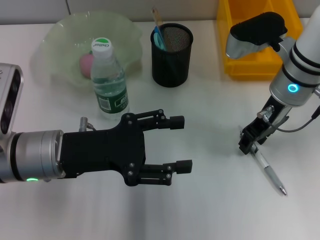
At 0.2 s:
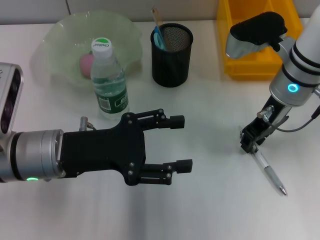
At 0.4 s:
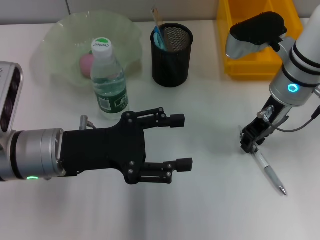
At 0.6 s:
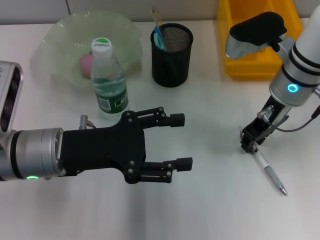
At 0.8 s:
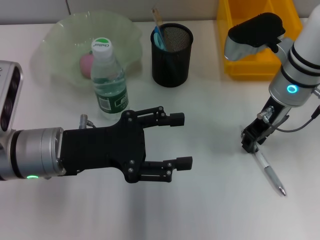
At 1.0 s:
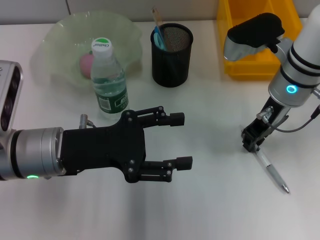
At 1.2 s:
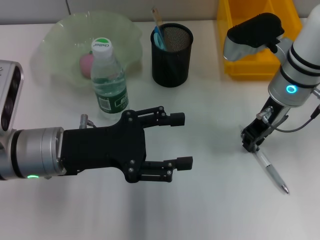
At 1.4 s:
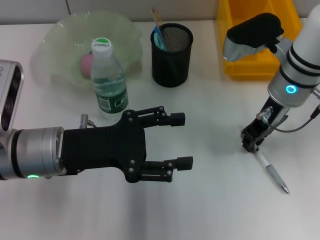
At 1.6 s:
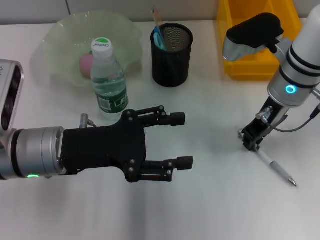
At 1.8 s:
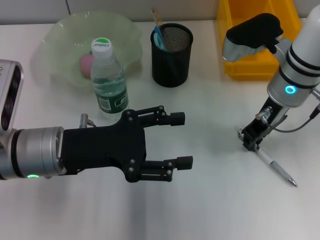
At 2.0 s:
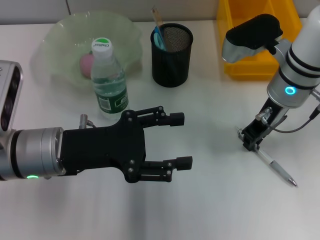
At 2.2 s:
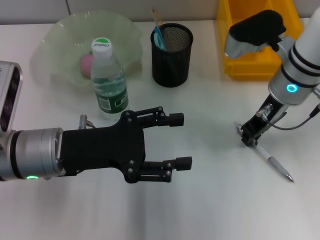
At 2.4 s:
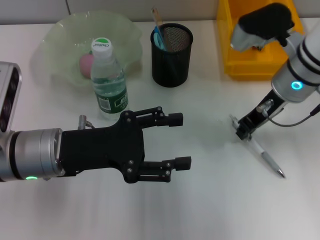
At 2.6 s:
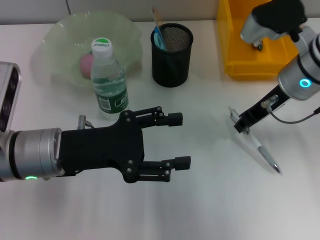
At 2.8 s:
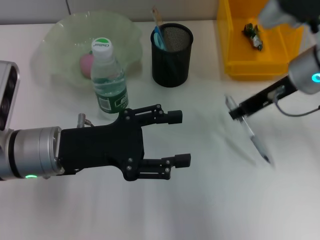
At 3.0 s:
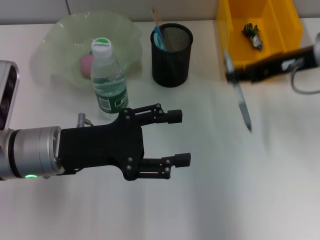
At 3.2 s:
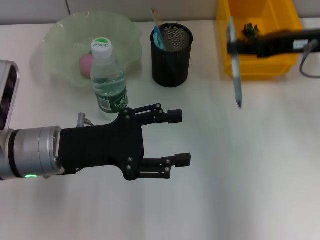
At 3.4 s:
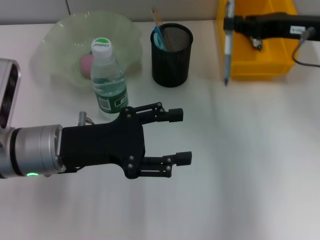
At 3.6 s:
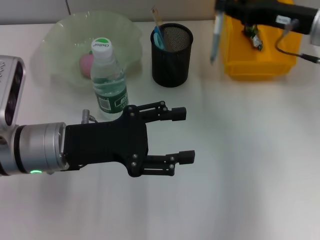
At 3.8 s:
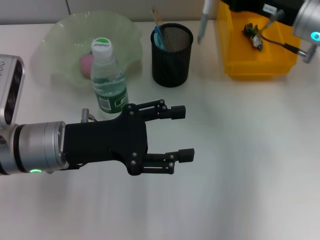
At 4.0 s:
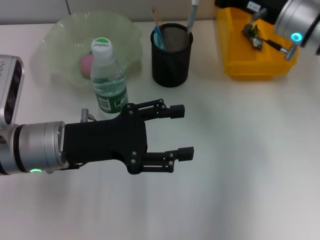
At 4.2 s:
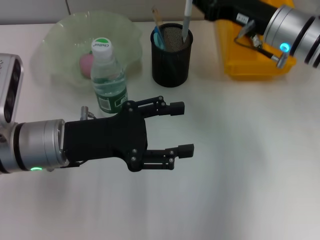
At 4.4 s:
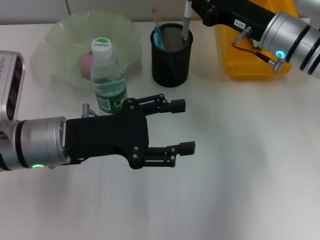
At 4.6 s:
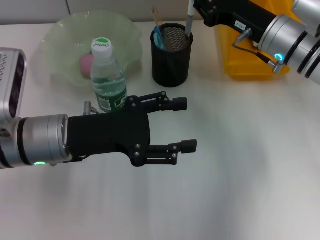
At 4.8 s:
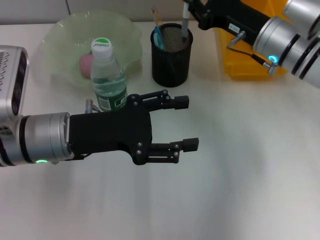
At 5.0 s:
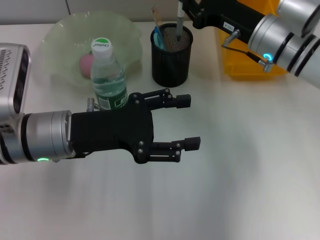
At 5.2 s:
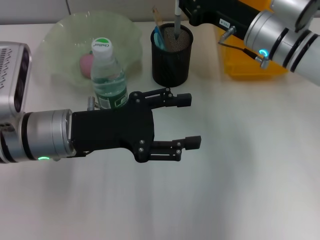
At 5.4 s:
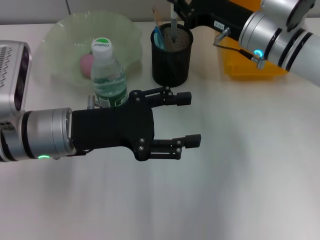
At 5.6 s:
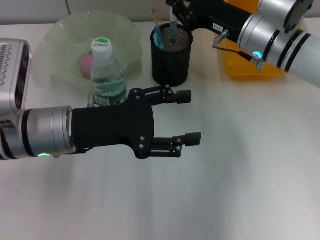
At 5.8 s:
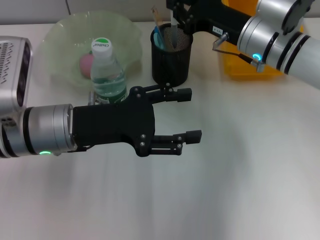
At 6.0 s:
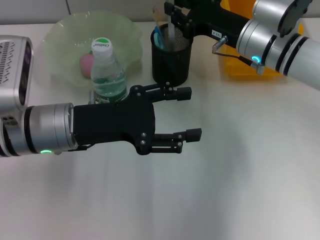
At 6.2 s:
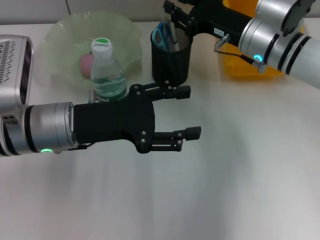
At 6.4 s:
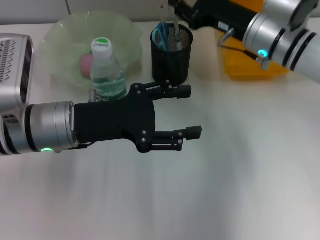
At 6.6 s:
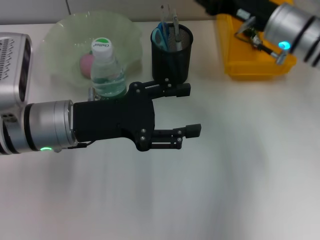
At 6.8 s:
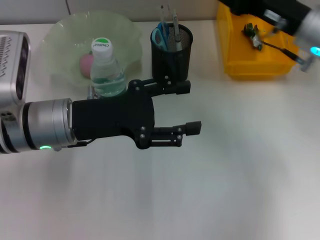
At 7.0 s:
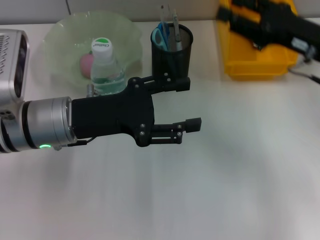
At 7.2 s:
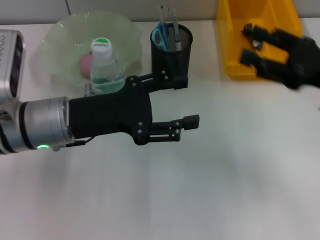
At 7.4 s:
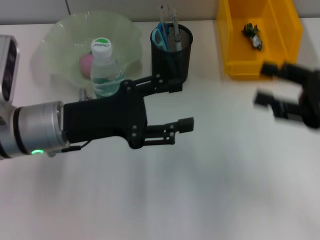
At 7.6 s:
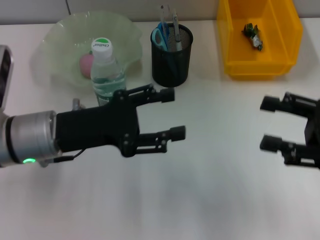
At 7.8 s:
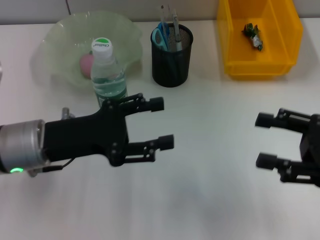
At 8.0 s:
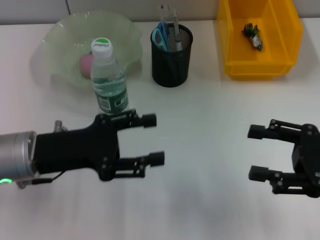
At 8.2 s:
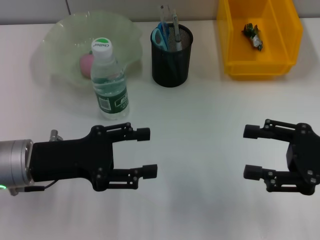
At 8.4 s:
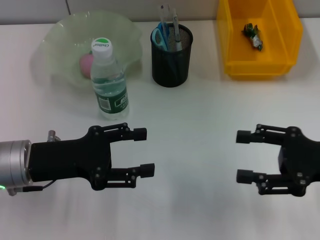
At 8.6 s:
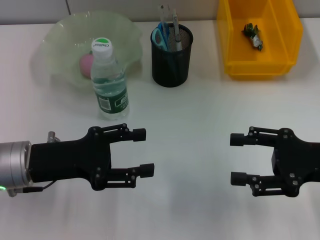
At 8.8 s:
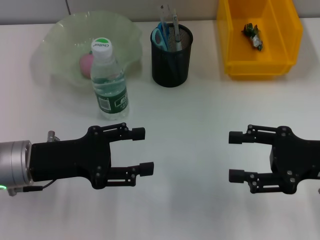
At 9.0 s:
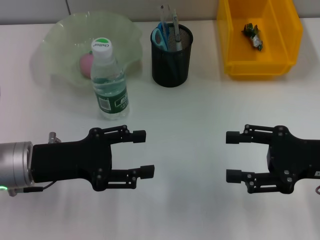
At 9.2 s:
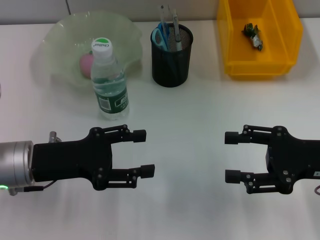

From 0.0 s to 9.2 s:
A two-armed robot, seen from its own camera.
Step, from 0.0 s to 2.0 s: Grab the gray spring-action pen with the right hand.
Step, from 2.2 s to 6.8 s: Place the gray spring-action pen into the pen holder with the right hand.
From 0.0 s to 1.6 s: Both grippers stay put.
From 1.6 s to 3.0 s: The right gripper is displaced to the right and upward by about 10 cm.
From 3.0 s to 4.6 s: The right gripper heads downward and to the left, covering approximately 10 cm.
From 6.2 s to 7.6 s: The right gripper travels backward and to the right by approximately 25 cm, and opens its fingers.
